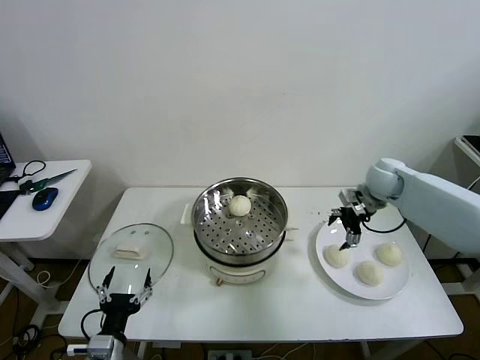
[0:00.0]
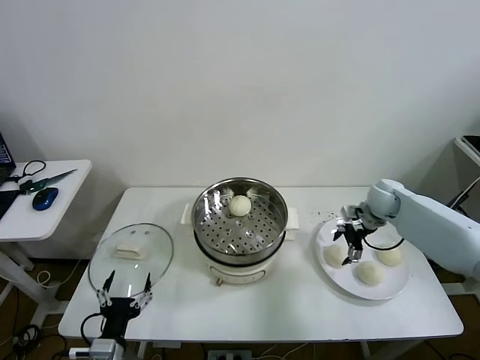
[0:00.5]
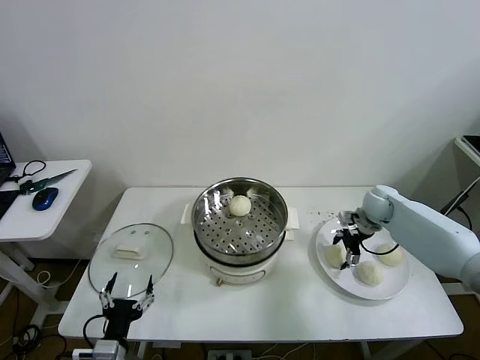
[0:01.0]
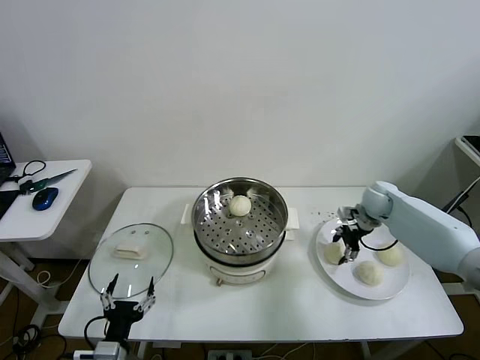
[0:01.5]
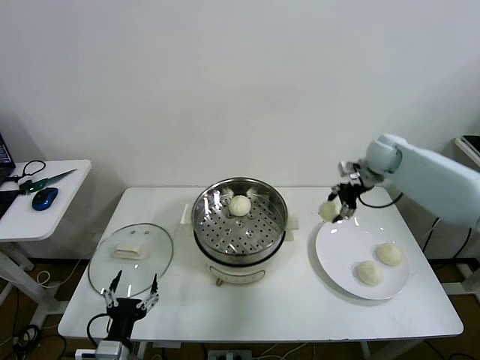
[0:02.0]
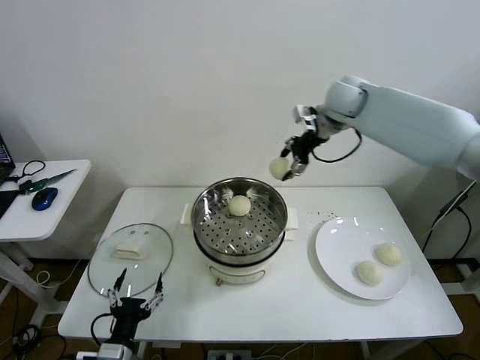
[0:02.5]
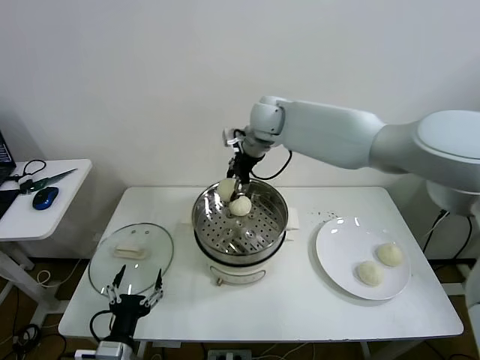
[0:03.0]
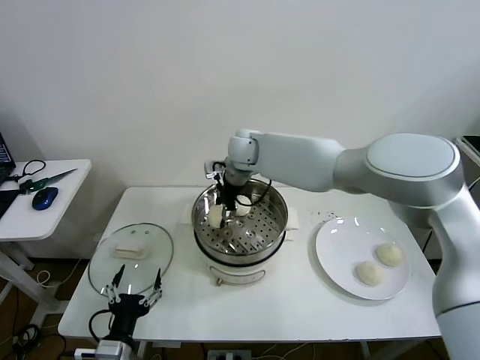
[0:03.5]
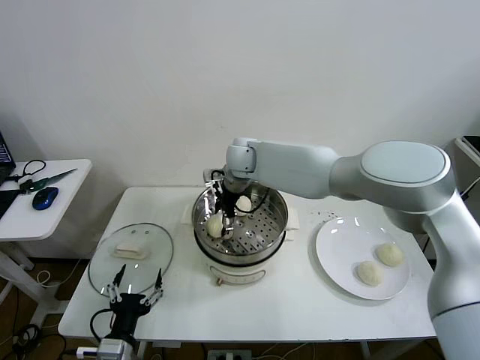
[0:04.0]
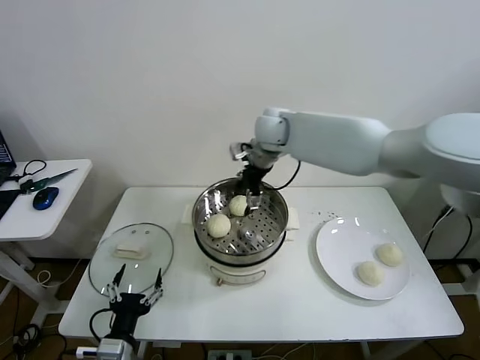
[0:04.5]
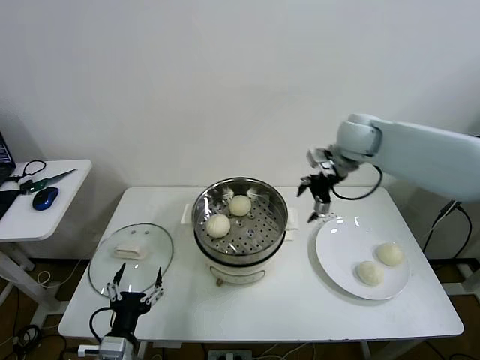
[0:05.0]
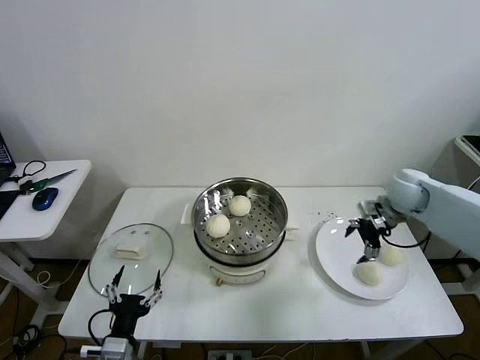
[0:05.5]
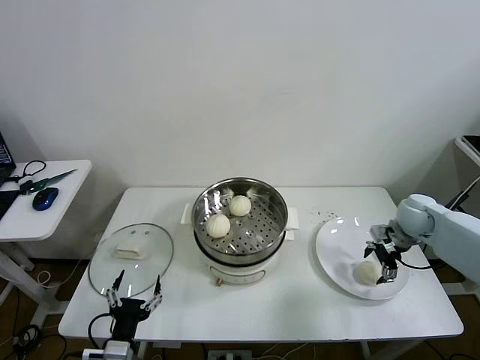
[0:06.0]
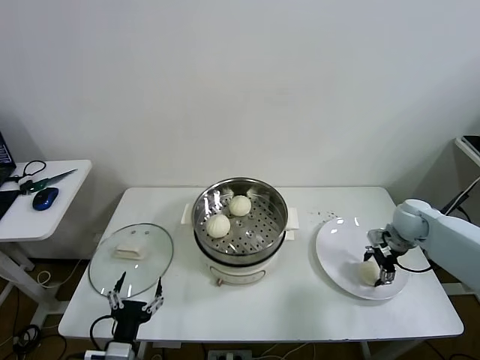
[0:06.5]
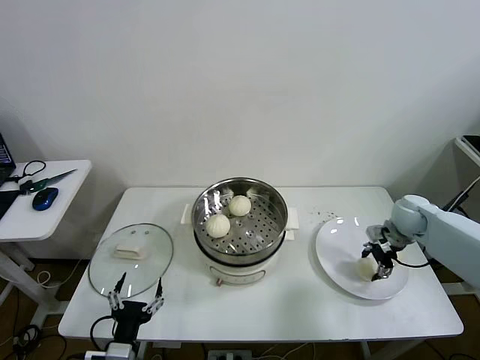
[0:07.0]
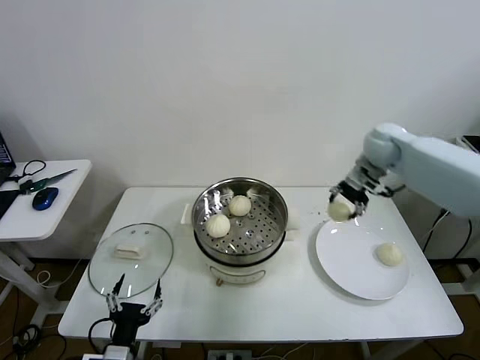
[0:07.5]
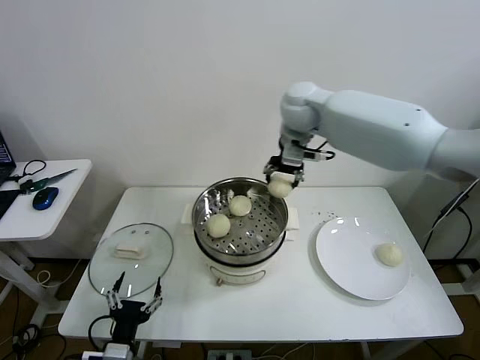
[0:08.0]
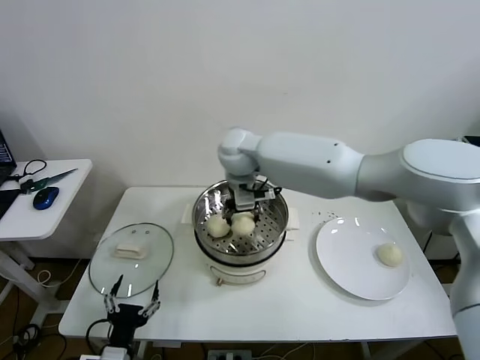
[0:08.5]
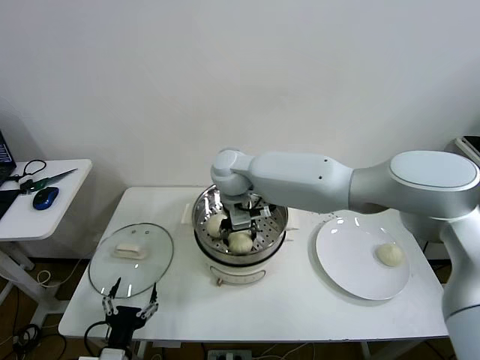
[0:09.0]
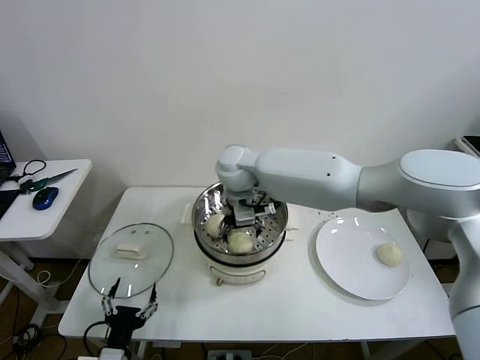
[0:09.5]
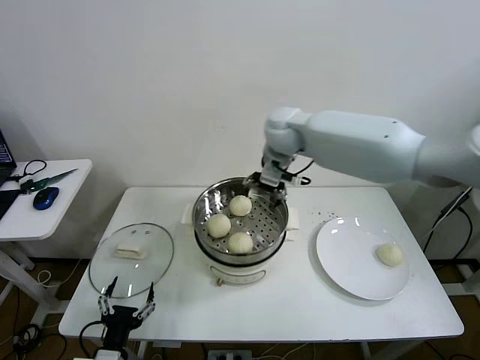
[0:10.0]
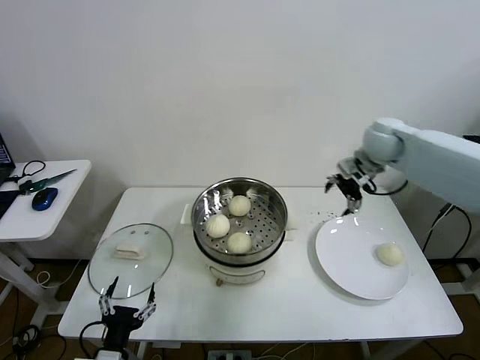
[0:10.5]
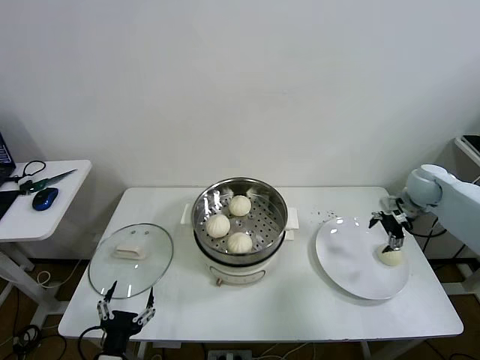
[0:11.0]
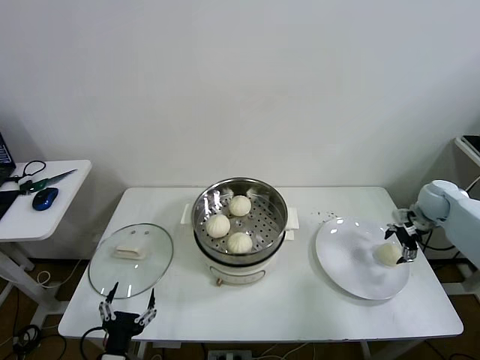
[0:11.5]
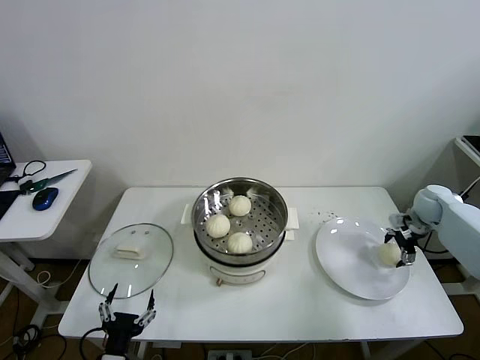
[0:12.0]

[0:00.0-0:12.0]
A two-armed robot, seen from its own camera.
Task of the whole recording: take steamed baozi put them in steamer then cover it.
Step, 0:01.5 to 0:04.0: Place the baozi on the steamer with right gripper.
Step, 0:04.5 to 0:06.5: Grasp the baozi in the plate with right gripper.
Step, 0:07.0 to 0:09.0: Place the baozi on the steamer with right gripper.
0:00.0 to 0:02.0: The right gripper goes roughly 10 cm upward and forward, and closes.
0:02.0 to 0:04.0: The right gripper moves to the left, some 35 cm, and opens its fingers.
0:04.0 to 0:06.0: The right gripper travels to the right by roughly 40 cm.
0:06.0 to 0:08.0: The right gripper moves to the left and upward, some 40 cm, and closes its fingers.
0:08.0 to 0:10.0: The right gripper reaches roughly 10 cm to the left, then returns, and opens its fingers.
0:10.0 to 0:12.0: The right gripper travels to the right and downward by roughly 40 cm.

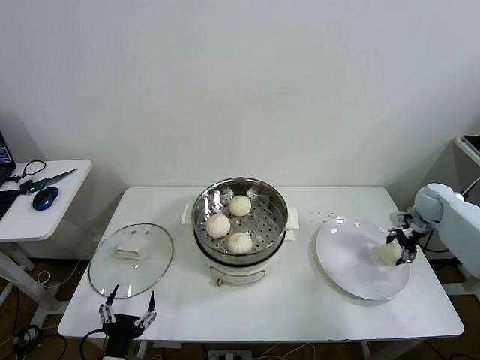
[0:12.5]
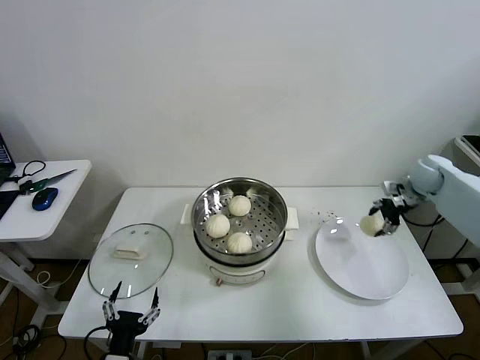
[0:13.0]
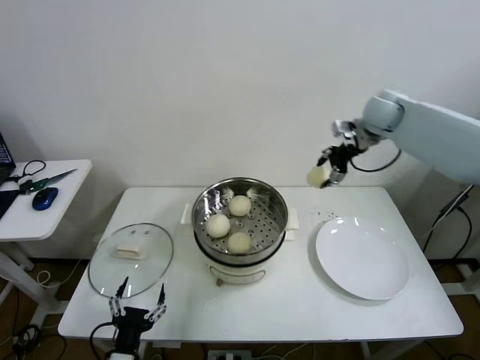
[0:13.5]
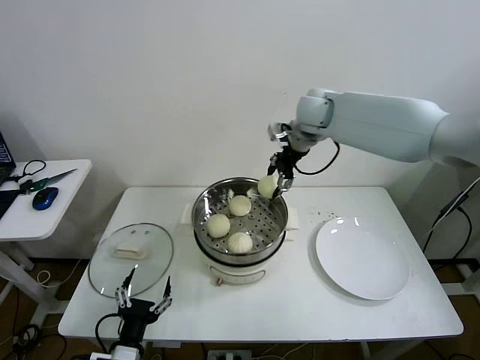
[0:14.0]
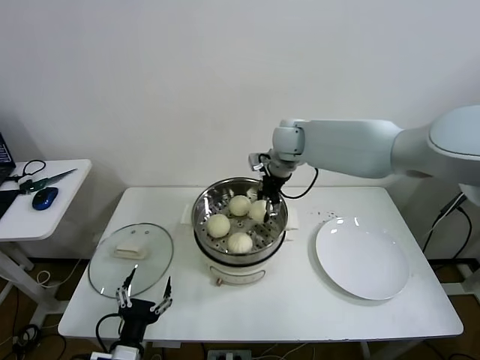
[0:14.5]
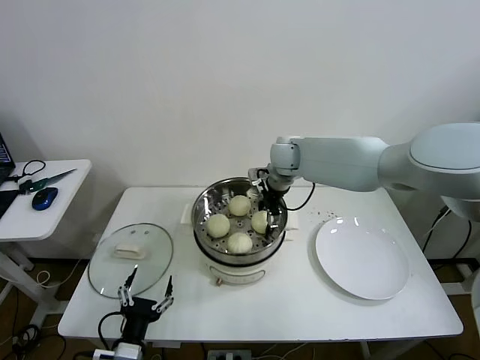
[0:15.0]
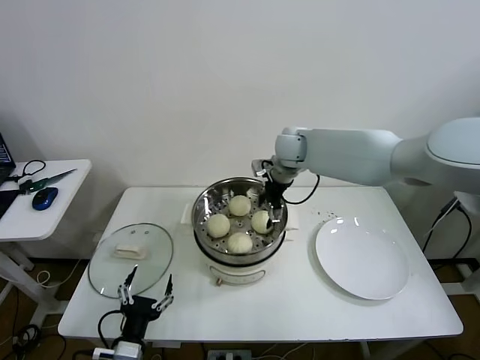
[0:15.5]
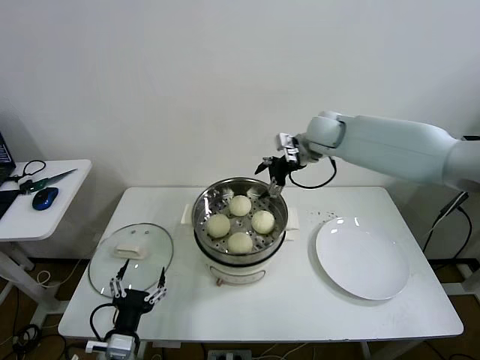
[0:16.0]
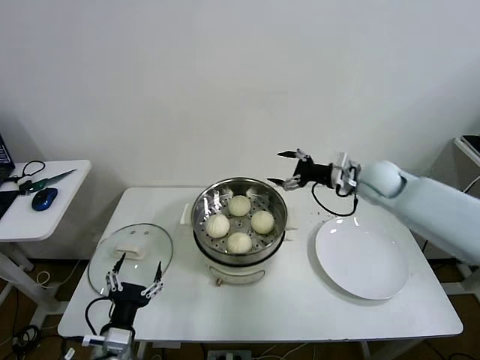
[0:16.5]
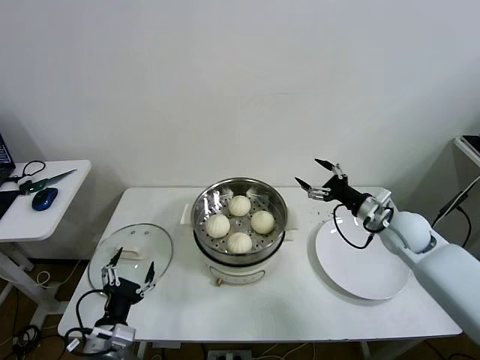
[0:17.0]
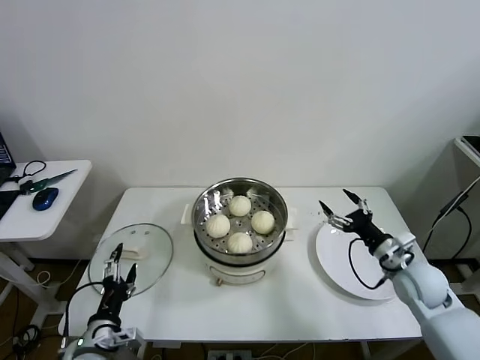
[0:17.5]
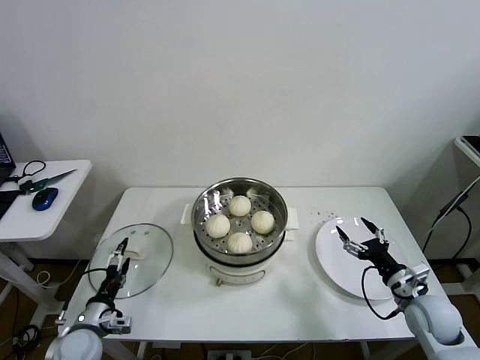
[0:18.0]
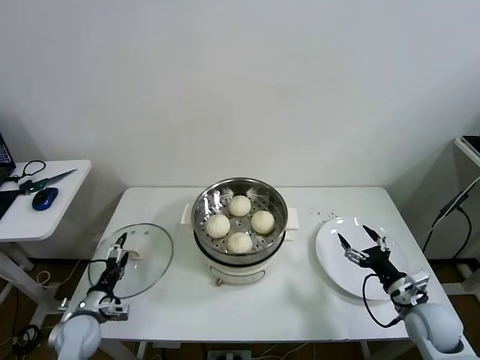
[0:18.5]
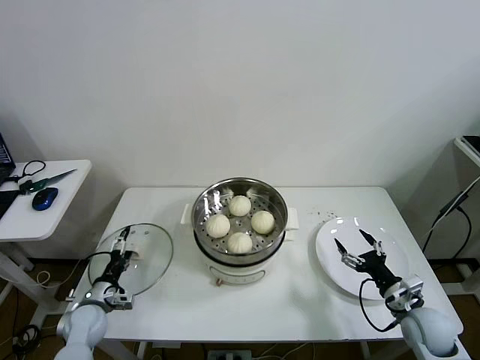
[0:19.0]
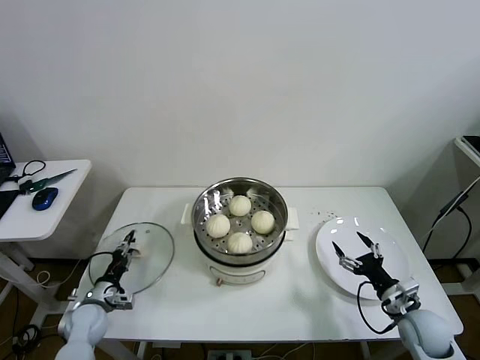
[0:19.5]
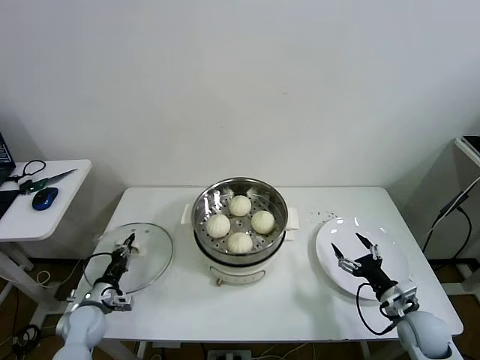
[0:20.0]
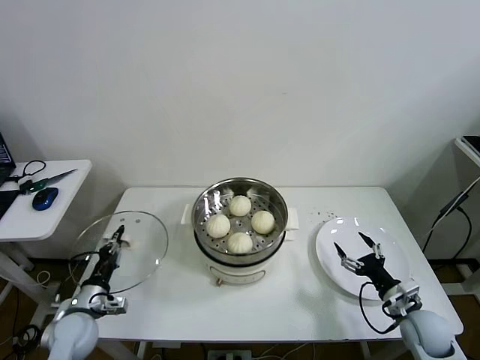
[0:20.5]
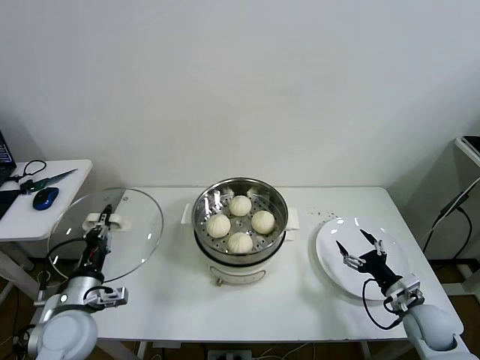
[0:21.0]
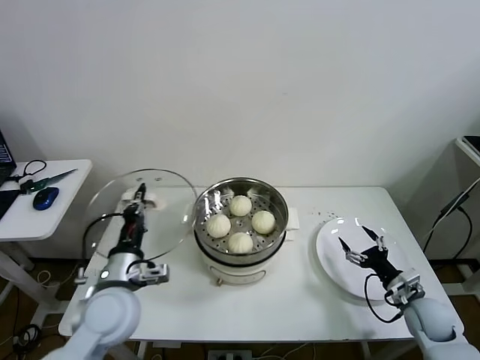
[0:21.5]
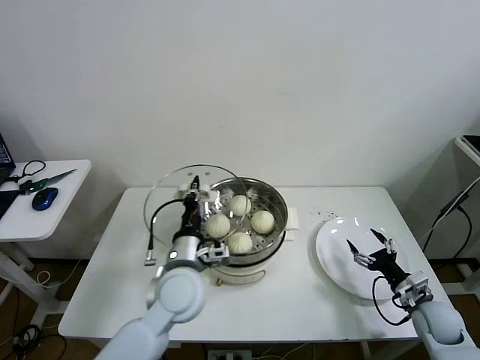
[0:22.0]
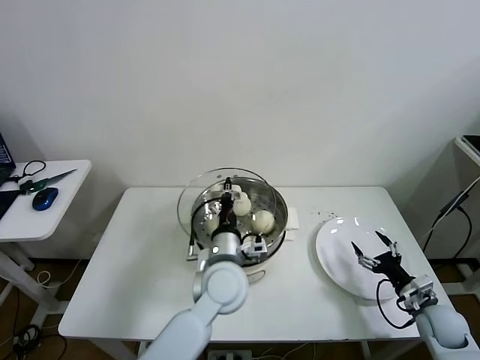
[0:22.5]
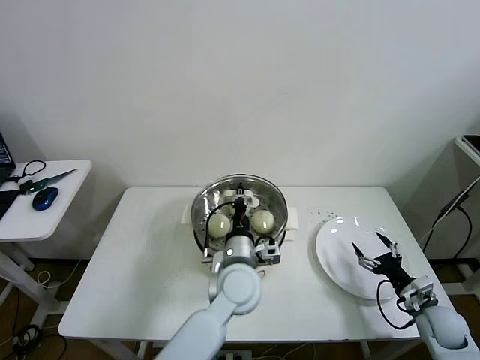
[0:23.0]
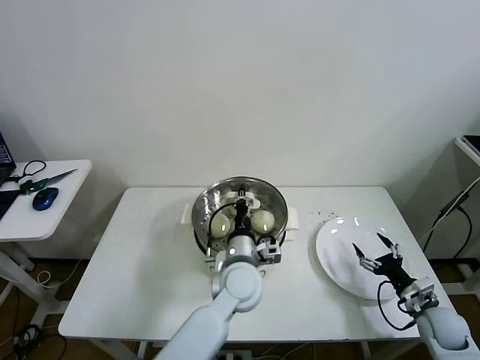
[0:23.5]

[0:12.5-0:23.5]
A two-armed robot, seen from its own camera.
Task of the whole recording: take steamed baozi put them in steamer then cover it.
Step, 0:12.5 to 0:15.0: Place the baozi on the steamer with right gripper.
Step, 0:15.5 to 0:19.5: Grasp the pot lid with left gripper.
0:12.5 to 0:14.5: The right gripper is displaced to the left and upward by roughly 40 cm.
0:14.5 to 0:16.0: The right gripper is displaced to the right by approximately 10 cm, and opens up.
0:16.0 to 0:18.0: The left gripper heads to the left, forward and downward, covering approximately 15 cm. The right gripper heads backward, downward and to the right, covering some 50 cm.
0:18.0 to 0:20.0: The left gripper goes approximately 5 cm forward, and closes its fingers, while the right gripper heads downward, covering roughly 5 cm.
0:20.0 to 0:21.5: The left gripper goes some 25 cm upward and to the right.
0:21.5 to 0:23.5: The left gripper heads to the right, covering roughly 25 cm.

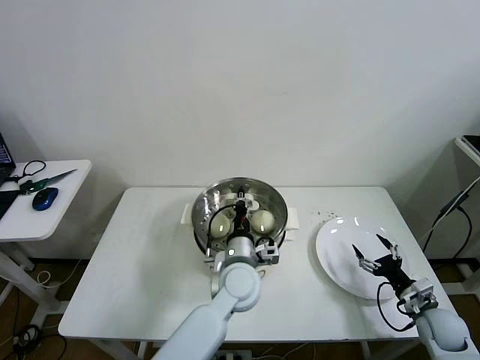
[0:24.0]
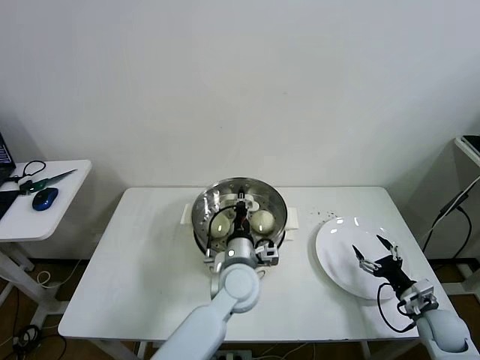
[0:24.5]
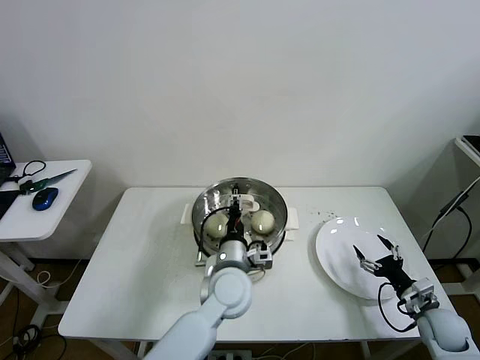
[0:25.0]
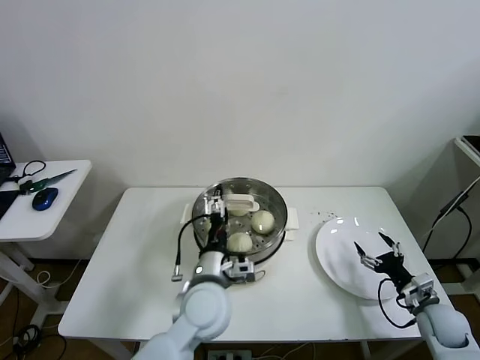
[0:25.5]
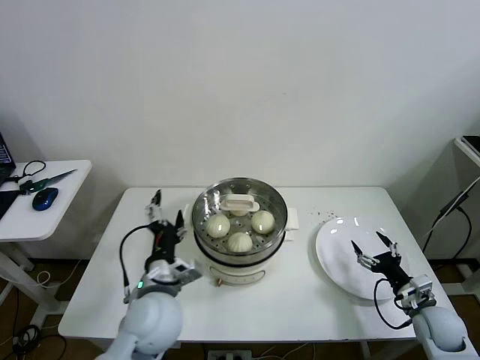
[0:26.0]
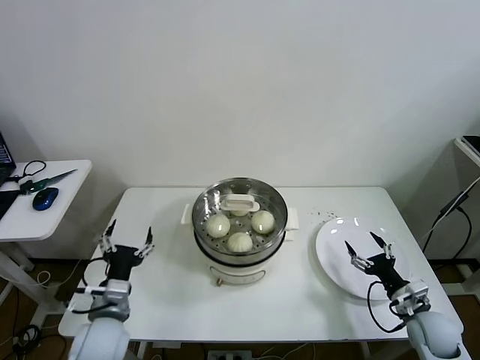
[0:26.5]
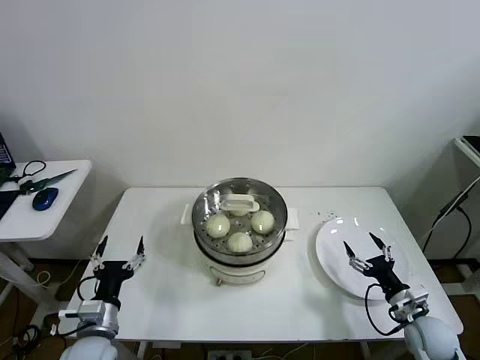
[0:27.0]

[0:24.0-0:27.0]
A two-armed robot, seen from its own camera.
Task of the whole recording: take steamed baozi put them in steamer then cover it.
0:24.0 to 0:25.5: The left gripper moves to the left, some 5 cm, and opens up.
0:25.5 to 0:27.0: The left gripper goes some 25 cm to the left.
